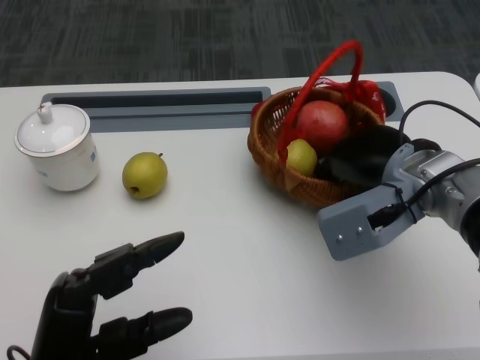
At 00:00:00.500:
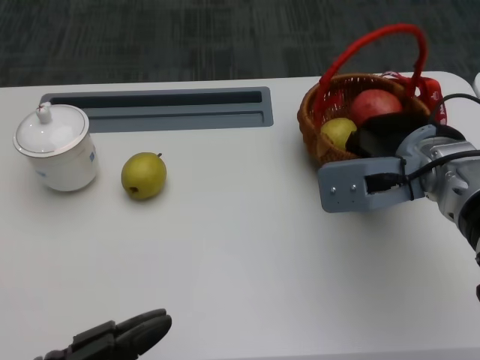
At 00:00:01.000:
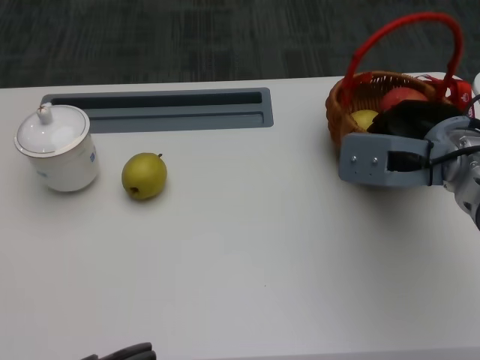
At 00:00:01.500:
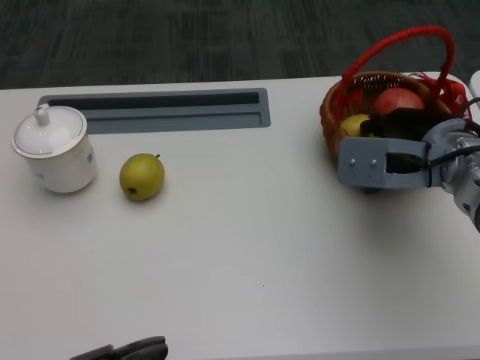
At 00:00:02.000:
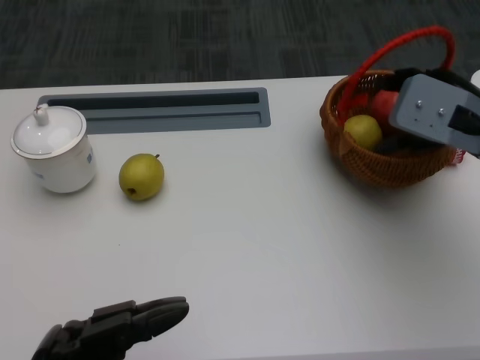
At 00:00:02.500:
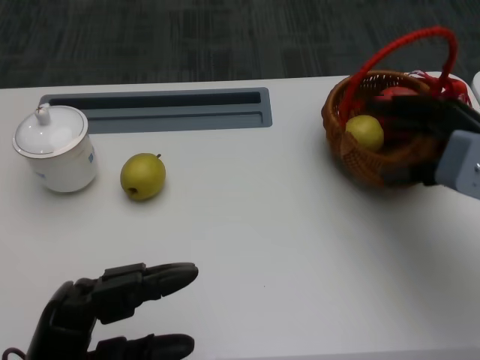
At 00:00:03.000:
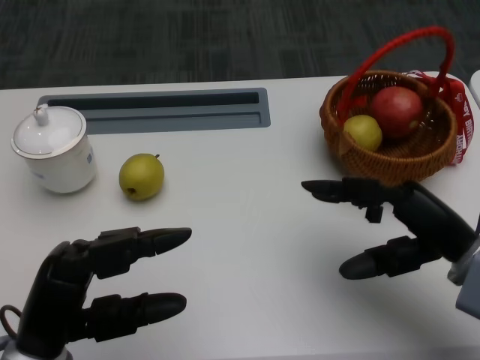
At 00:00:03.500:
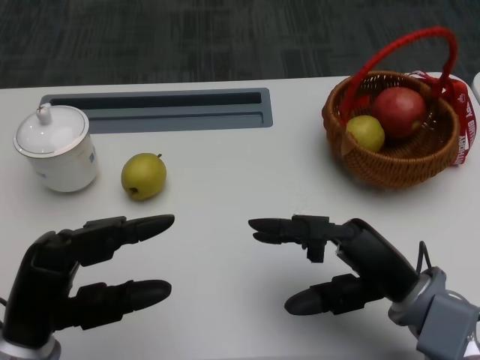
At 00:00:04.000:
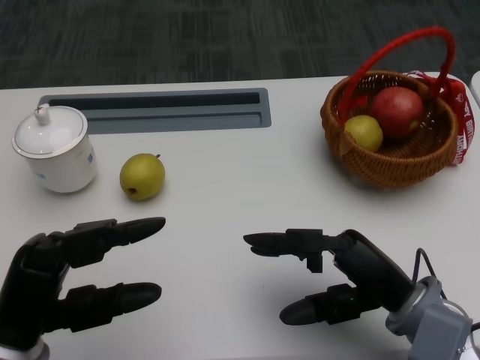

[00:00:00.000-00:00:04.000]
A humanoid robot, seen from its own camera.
00:00:00.000 to 00:00:02.000: The left hand heads backward, covering roughly 5 cm, while the right hand is displaced to the right by some 5 cm.
00:00:02.000 to 00:00:04.000: The right hand heads backward, downward and to the left, covering some 20 cm. Meanwhile the left hand goes roughly 10 cm forward.
